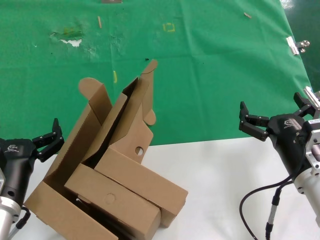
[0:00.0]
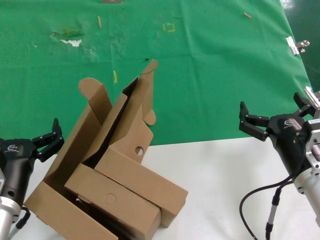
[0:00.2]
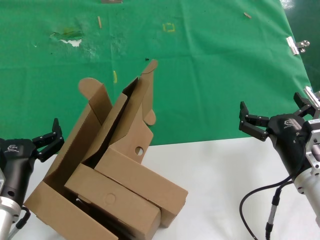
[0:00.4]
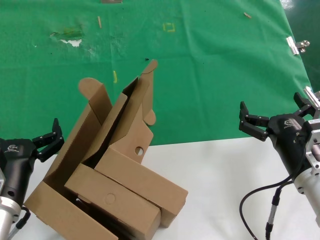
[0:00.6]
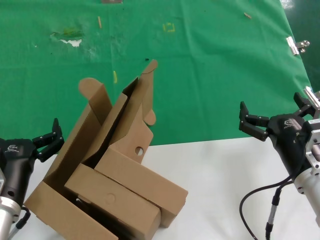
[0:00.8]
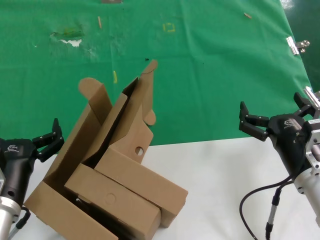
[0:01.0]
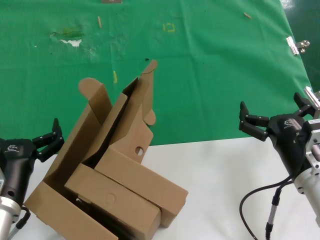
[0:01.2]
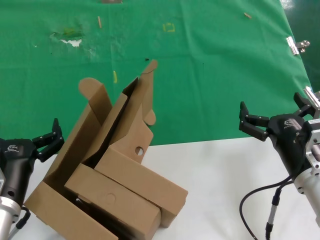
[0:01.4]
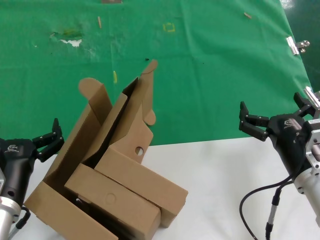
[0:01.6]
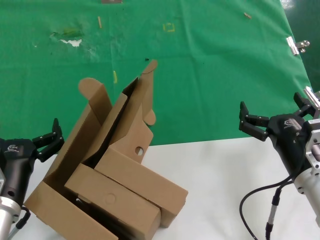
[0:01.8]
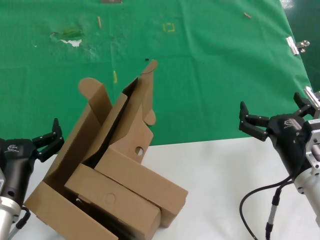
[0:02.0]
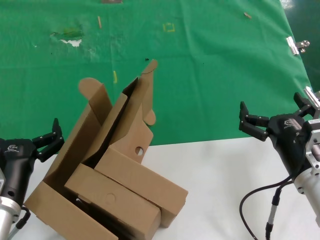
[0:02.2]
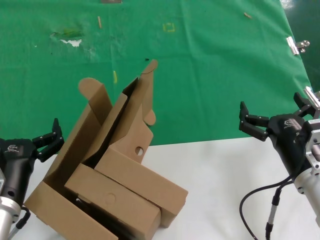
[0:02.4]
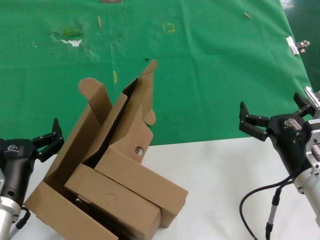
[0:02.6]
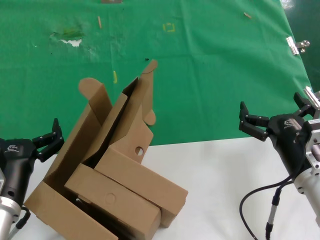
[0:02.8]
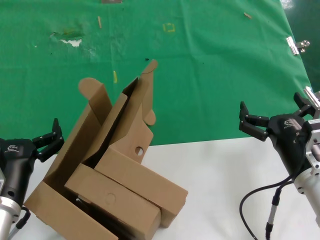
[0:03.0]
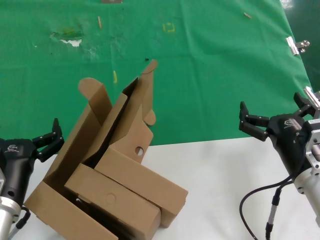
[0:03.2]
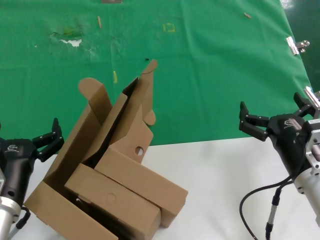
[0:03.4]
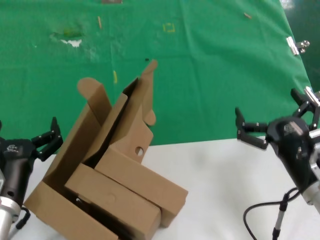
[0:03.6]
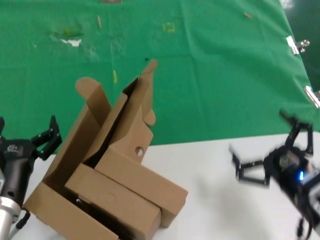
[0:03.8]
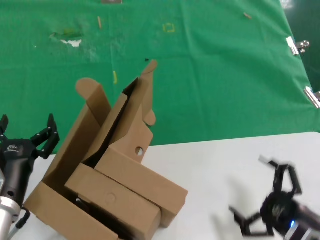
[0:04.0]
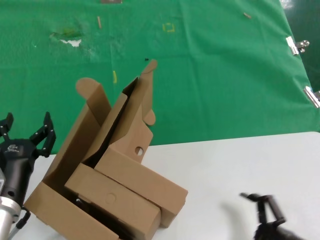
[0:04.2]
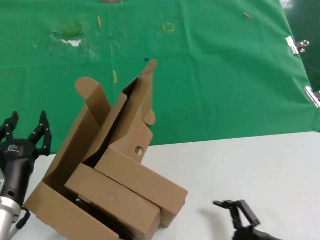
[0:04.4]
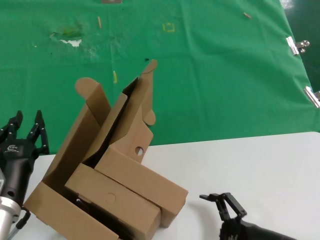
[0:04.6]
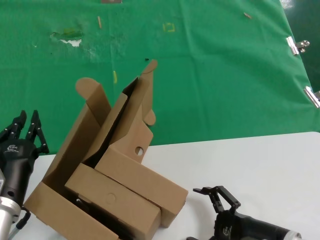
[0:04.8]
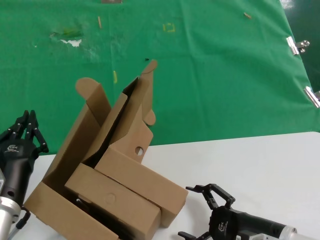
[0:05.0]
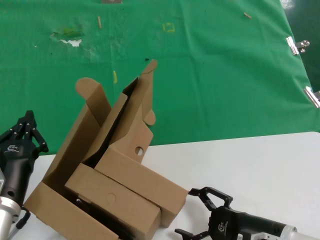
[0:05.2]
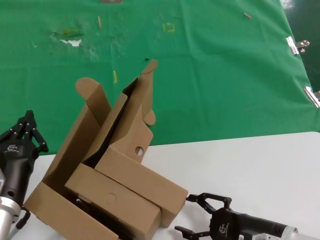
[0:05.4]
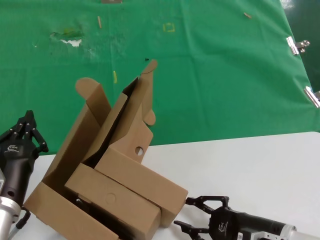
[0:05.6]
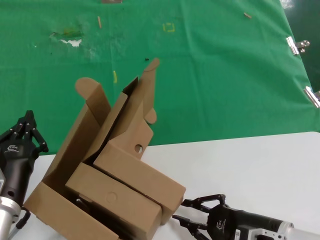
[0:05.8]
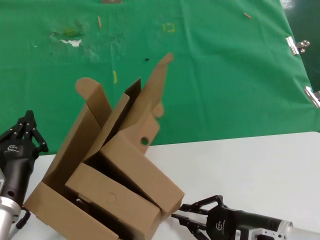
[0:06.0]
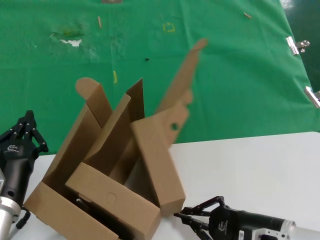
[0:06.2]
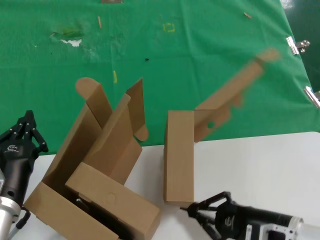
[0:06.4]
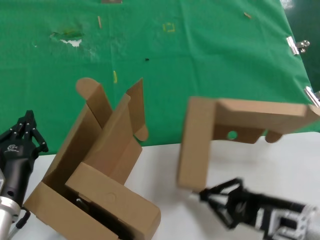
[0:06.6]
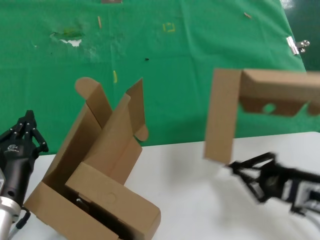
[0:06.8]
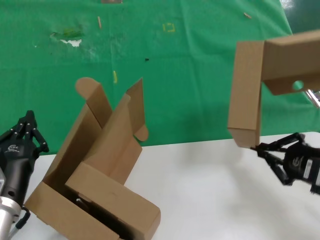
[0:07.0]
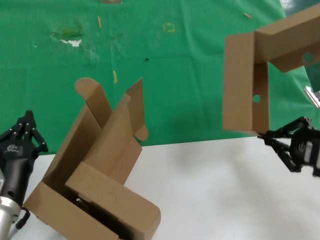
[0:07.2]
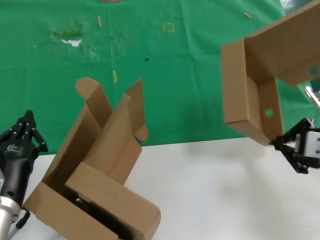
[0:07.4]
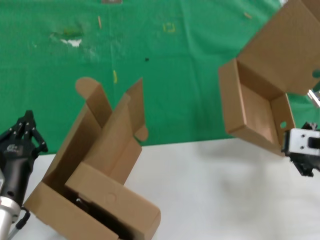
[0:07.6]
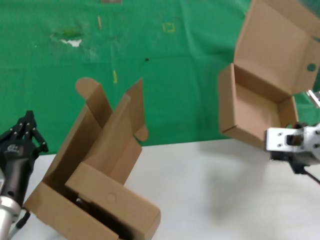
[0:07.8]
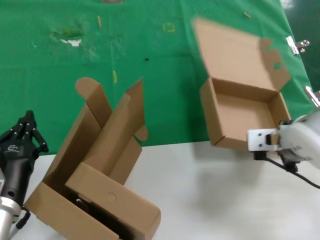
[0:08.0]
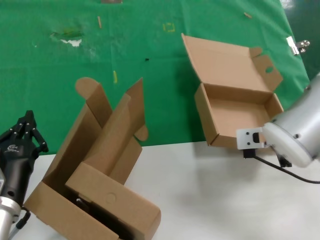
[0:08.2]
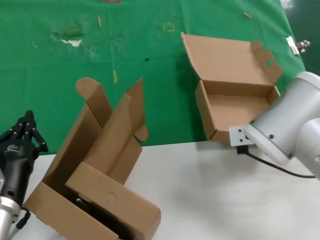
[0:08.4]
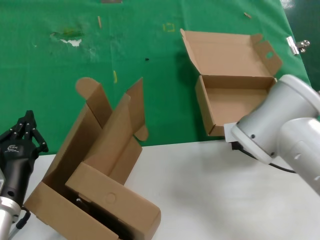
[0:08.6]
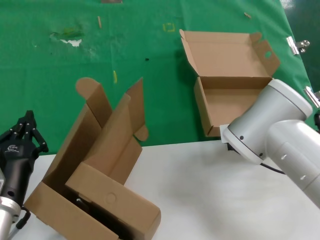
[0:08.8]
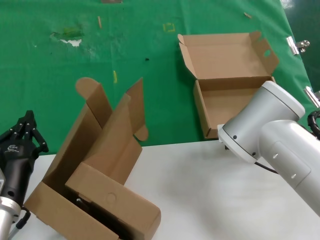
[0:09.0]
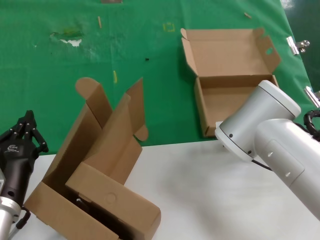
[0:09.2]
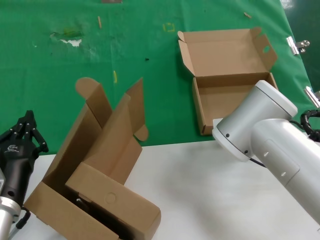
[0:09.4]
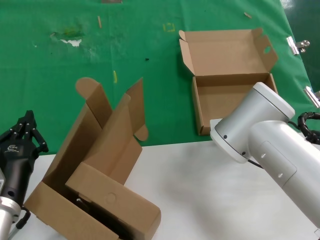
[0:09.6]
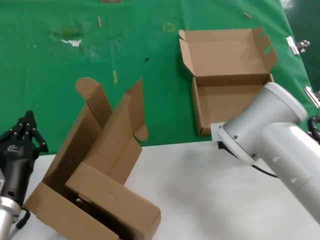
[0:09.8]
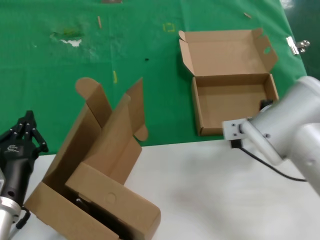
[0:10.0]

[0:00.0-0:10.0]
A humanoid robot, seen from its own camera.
Task of the whole recording: pick up the paper box and put it at the back.
Step, 0:00.0 to 0:06.2: Grasp the paper box.
Step, 0:06.4 to 0:09.8: Place the paper box on the table.
0:00.0 to 0:02.8: Both hands stay put.
0:02.8 to 0:04.2: The right hand goes roughly 15 cm backward, downward and to the right.
0:04.2 to 0:05.8: The right hand moves forward, some 10 cm.
0:05.8 to 0:07.2: The right hand is displaced upward and to the right by approximately 20 cm.
0:07.2 to 0:08.6: The right hand is displaced to the left and forward by approximately 20 cm.
0:08.6 to 0:10.0: The hands make only small movements.

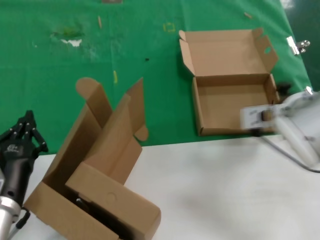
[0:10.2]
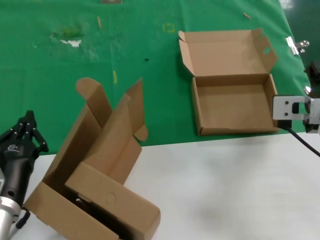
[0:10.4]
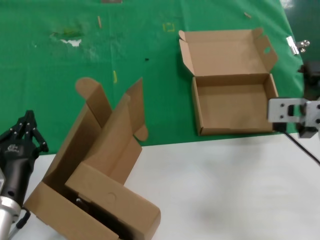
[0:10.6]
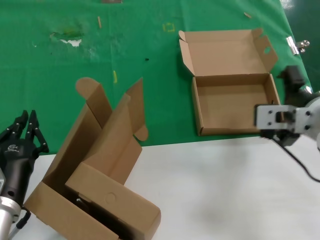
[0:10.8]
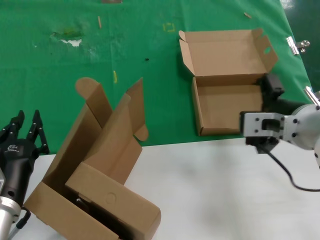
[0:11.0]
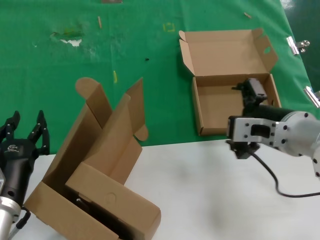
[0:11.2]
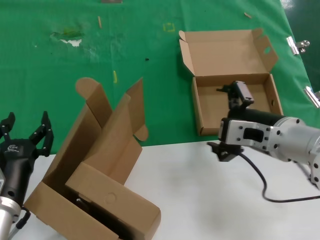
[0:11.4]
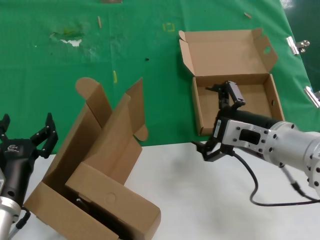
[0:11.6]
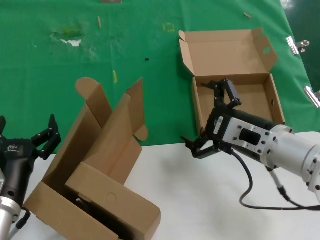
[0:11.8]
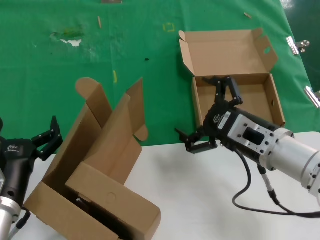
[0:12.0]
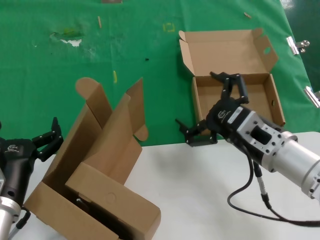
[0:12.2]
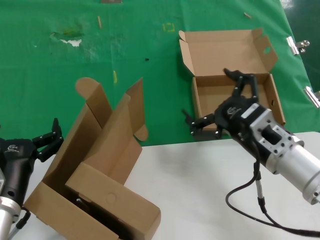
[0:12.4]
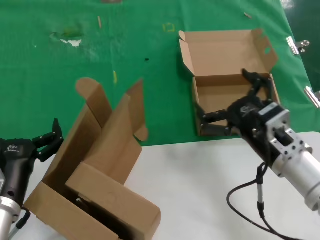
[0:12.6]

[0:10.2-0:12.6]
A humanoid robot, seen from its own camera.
Task of the whole recording: pick up the paper box and put it at the back.
0:10.2 to 0:11.4: The right hand moves some 5 cm.
0:11.4 to 0:12.6: The right hand goes about 5 cm downward.

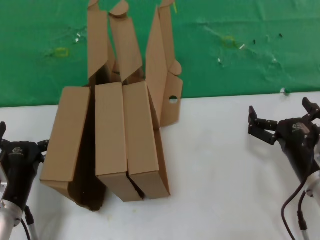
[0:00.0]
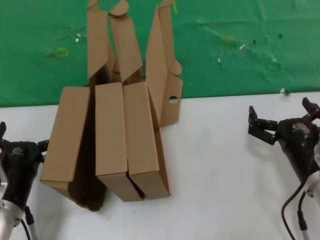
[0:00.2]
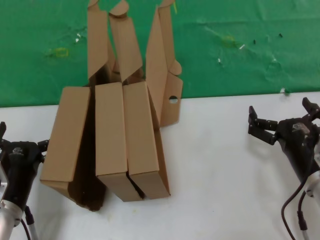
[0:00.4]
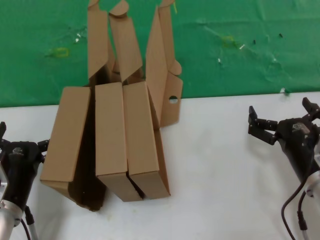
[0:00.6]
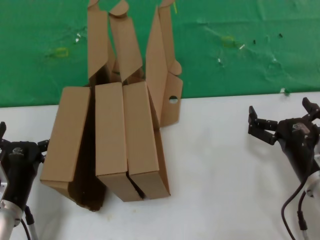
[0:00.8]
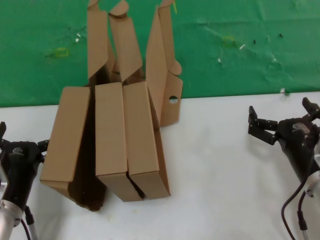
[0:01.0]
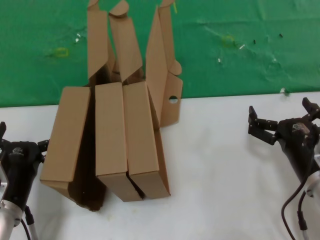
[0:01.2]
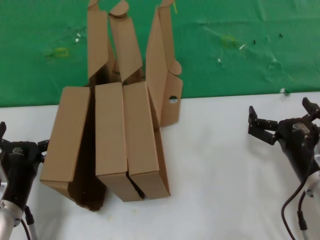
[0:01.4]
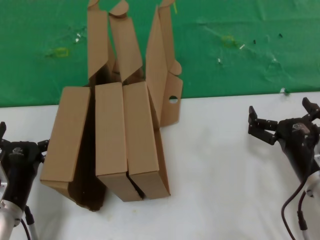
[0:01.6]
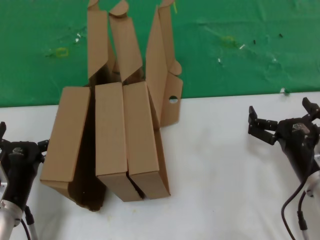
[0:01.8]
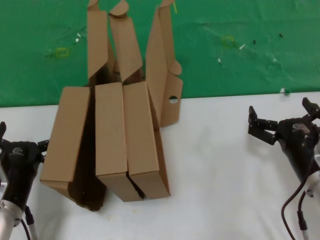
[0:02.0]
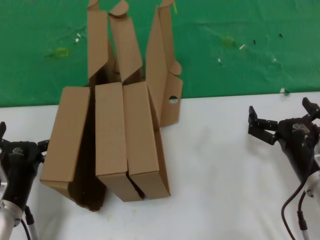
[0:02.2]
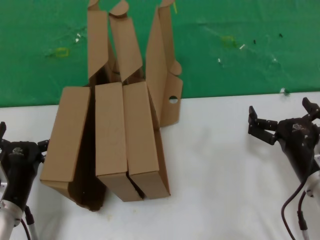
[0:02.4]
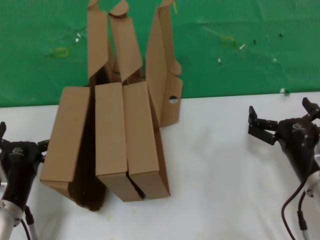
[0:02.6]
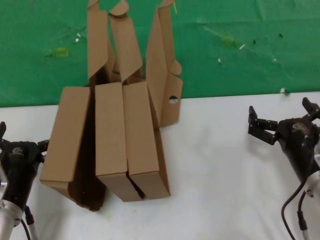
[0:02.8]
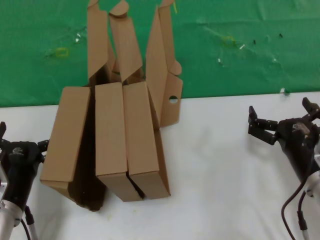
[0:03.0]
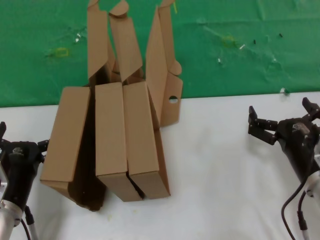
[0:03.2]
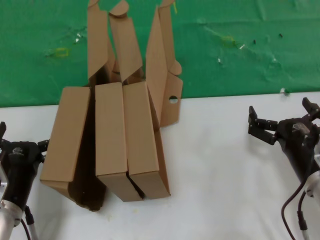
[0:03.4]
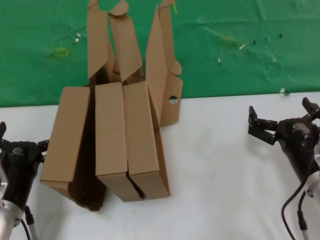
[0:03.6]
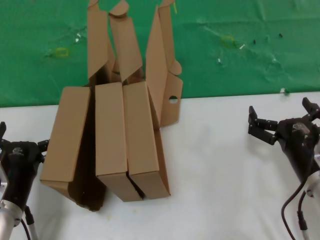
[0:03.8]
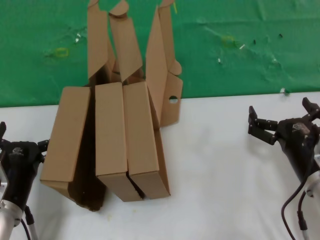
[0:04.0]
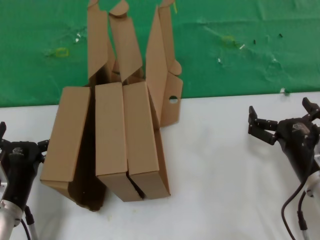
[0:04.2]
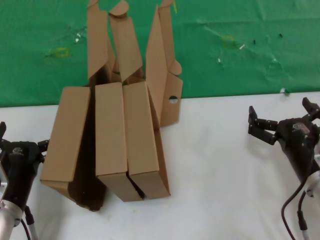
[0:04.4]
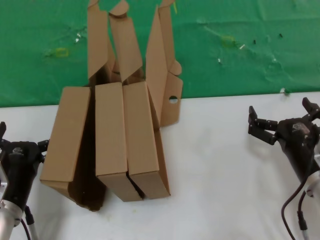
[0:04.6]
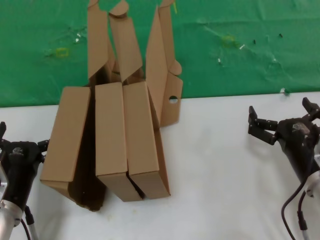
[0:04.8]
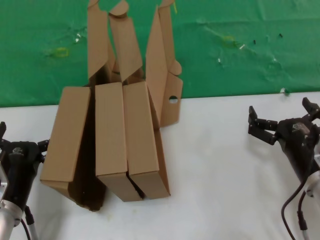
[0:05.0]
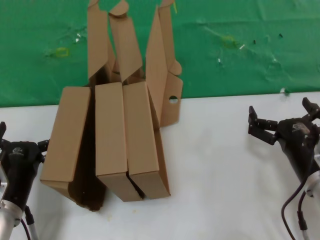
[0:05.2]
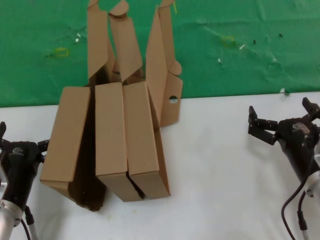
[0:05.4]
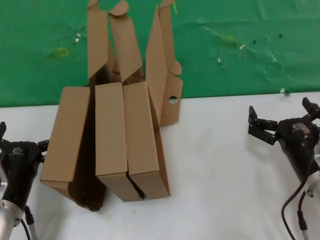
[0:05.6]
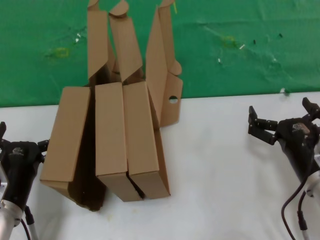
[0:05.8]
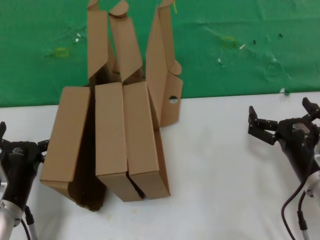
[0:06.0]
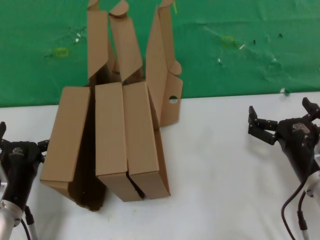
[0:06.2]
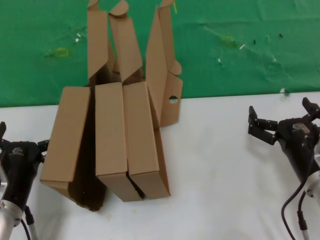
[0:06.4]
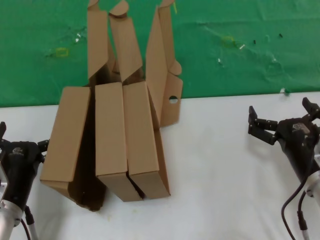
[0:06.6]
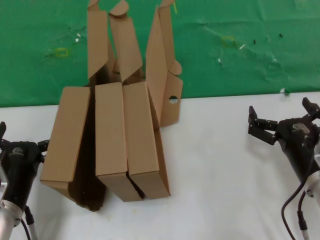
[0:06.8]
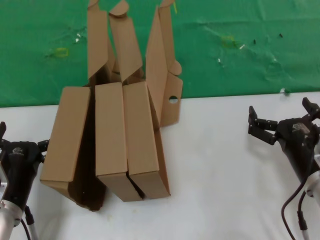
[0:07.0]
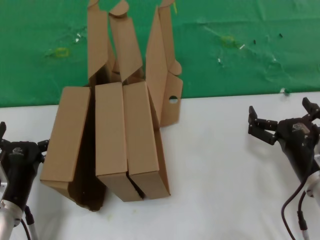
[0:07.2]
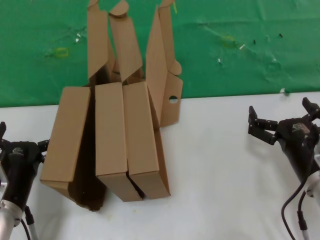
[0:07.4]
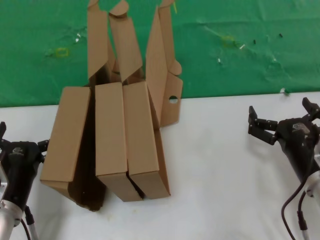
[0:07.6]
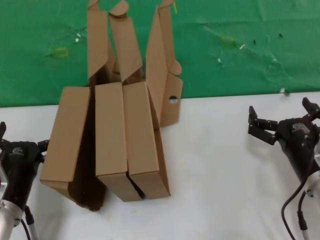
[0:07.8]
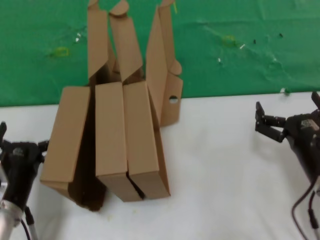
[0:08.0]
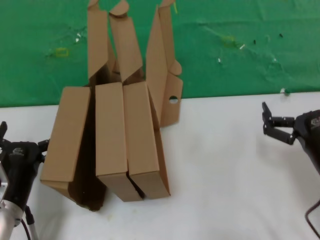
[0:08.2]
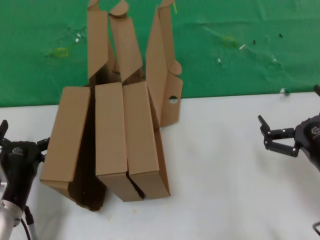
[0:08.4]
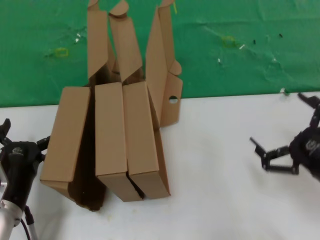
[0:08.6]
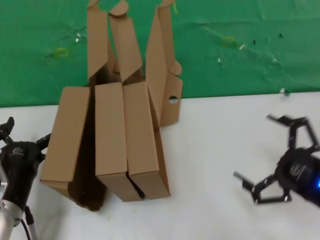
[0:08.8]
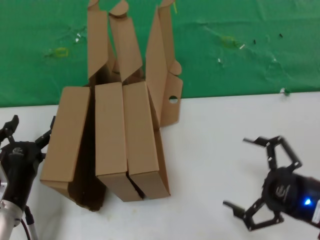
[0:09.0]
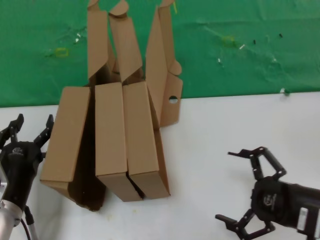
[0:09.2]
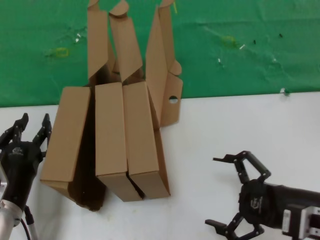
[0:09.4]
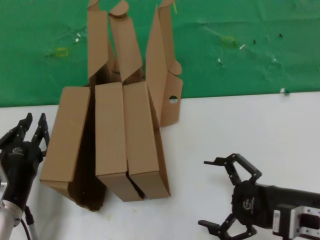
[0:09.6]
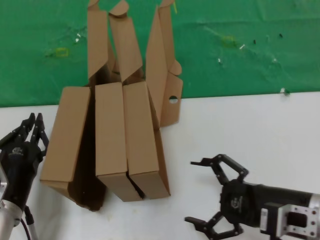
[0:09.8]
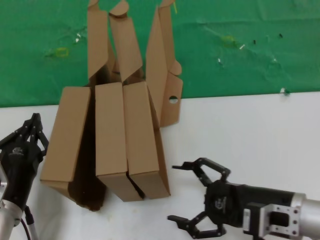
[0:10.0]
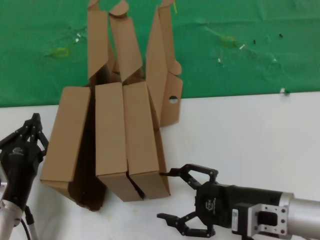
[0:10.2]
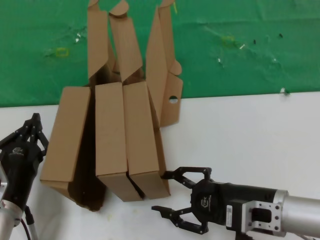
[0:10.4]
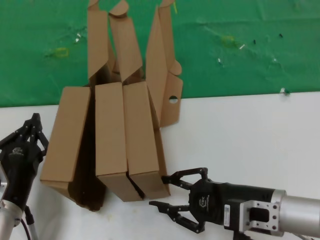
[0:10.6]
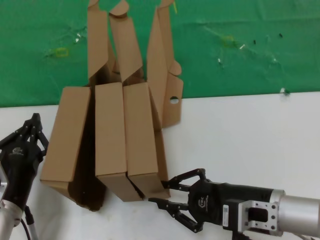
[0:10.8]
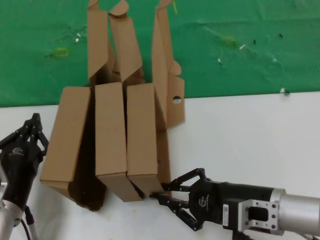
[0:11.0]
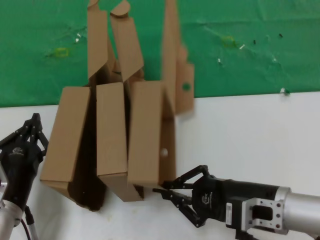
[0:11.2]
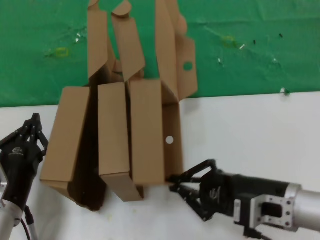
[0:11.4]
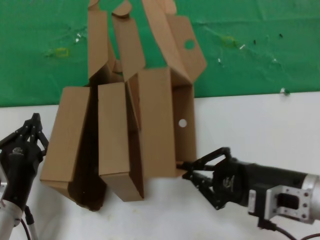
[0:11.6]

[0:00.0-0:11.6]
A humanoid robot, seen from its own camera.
Task of the whole recording: pick up the paper box and put it at the back.
Step, 0:00.0 to 0:11.0: Grasp the paper box.
0:00.0 to 0:07.2: Both hands stay put.
0:07.2 to 0:08.8: The right hand moves backward, to the right and upward, about 10 cm.
0:08.8 to 0:10.2: The right hand heads to the left, covering approximately 10 cm.
